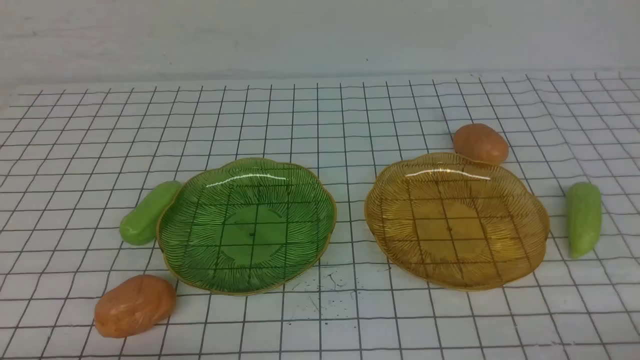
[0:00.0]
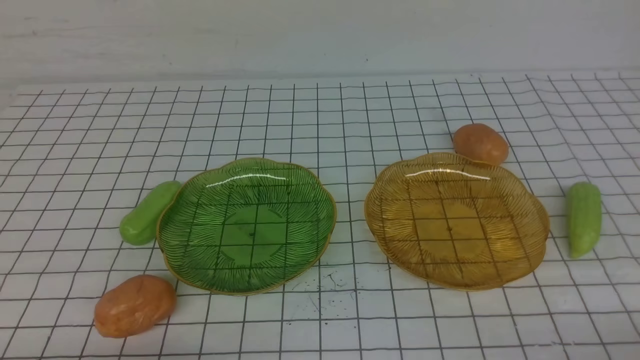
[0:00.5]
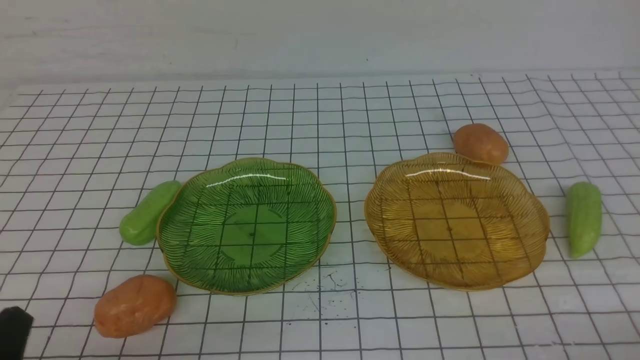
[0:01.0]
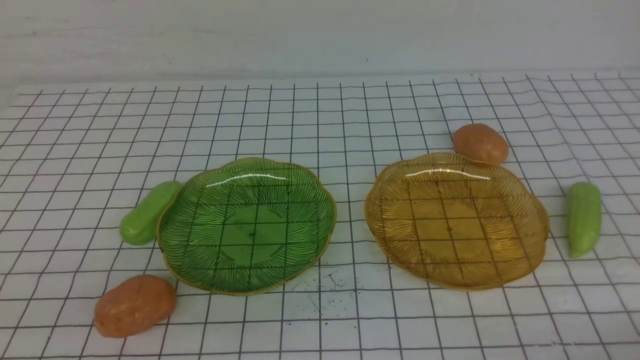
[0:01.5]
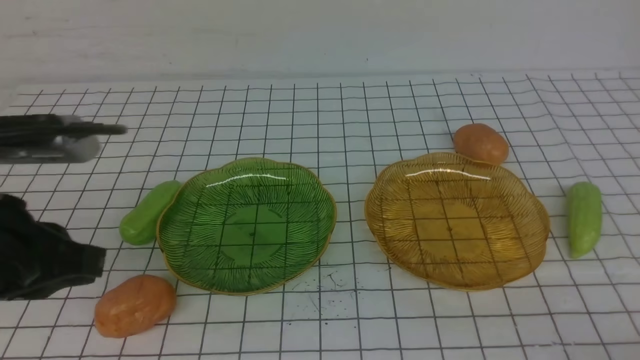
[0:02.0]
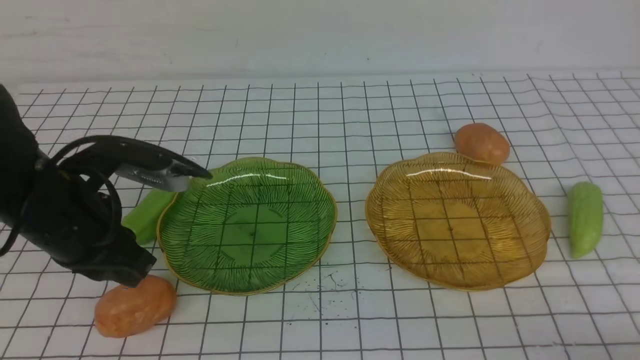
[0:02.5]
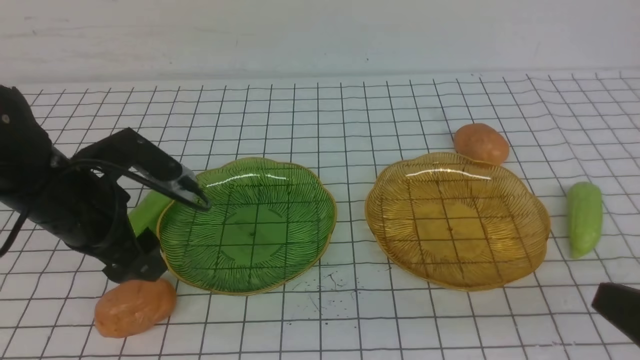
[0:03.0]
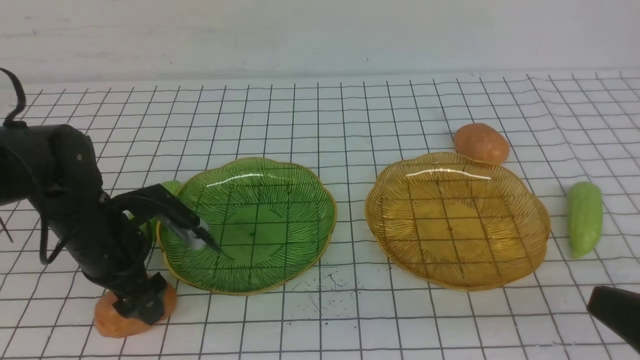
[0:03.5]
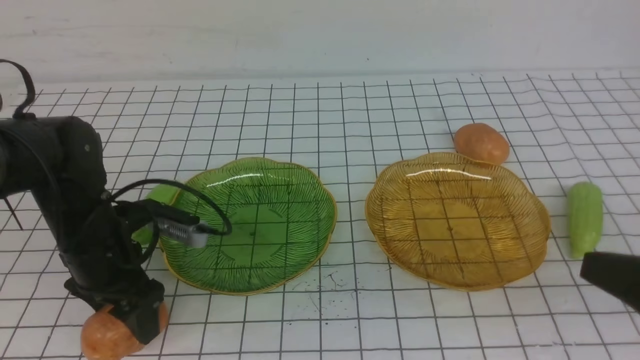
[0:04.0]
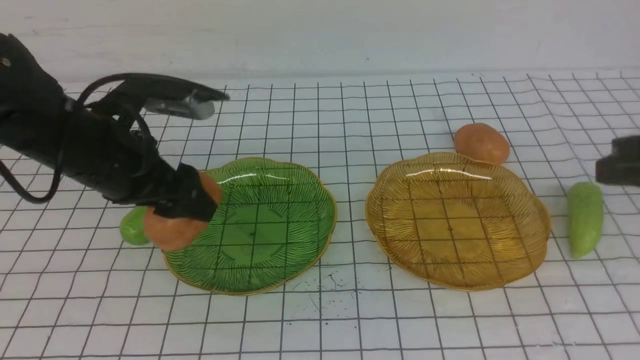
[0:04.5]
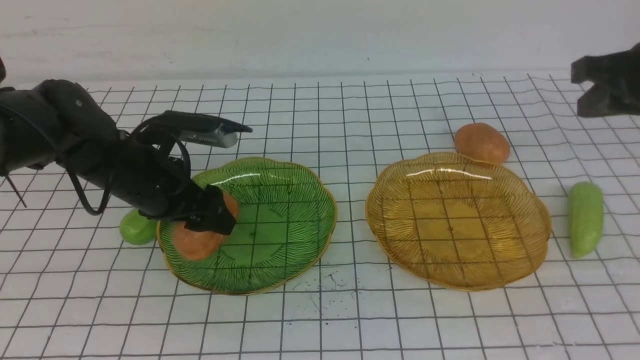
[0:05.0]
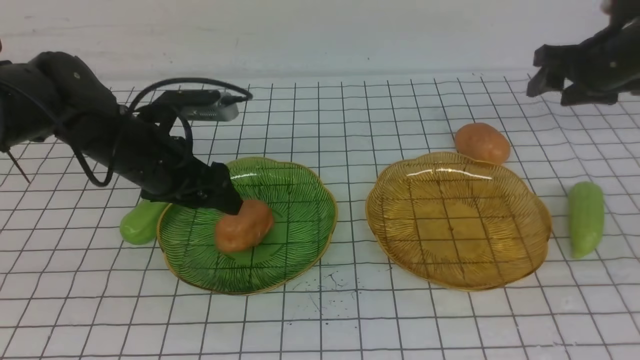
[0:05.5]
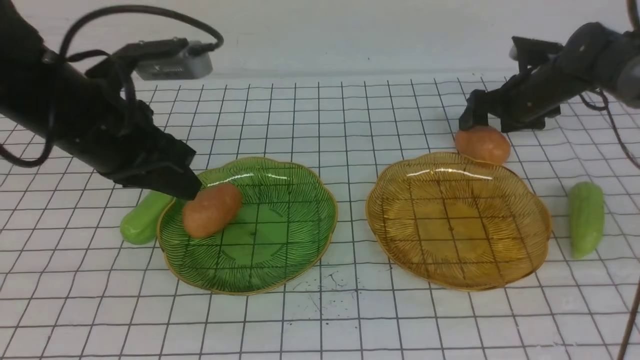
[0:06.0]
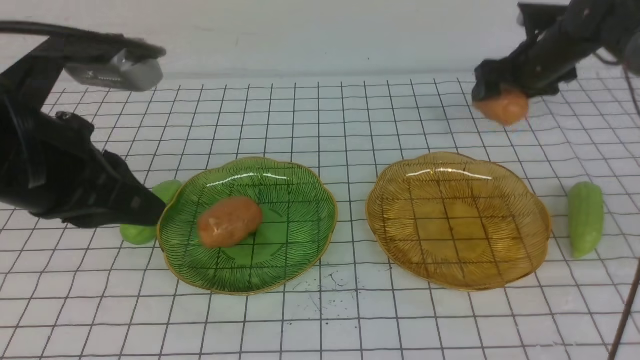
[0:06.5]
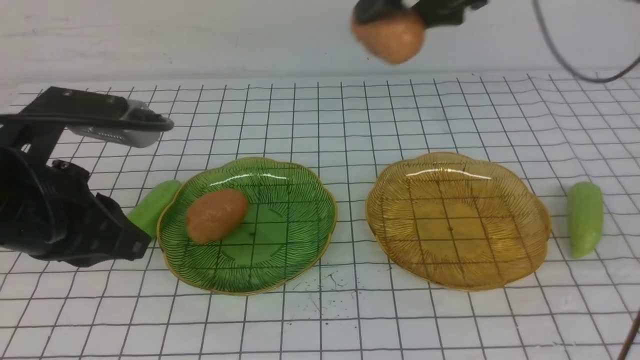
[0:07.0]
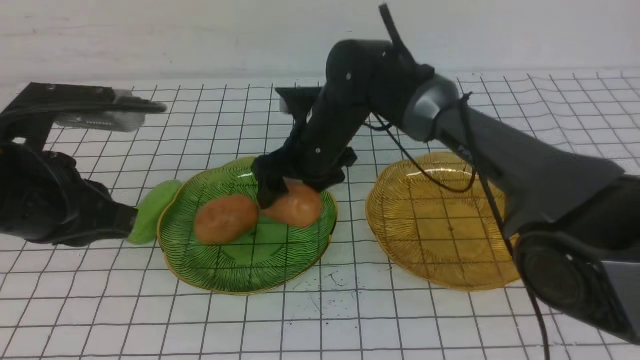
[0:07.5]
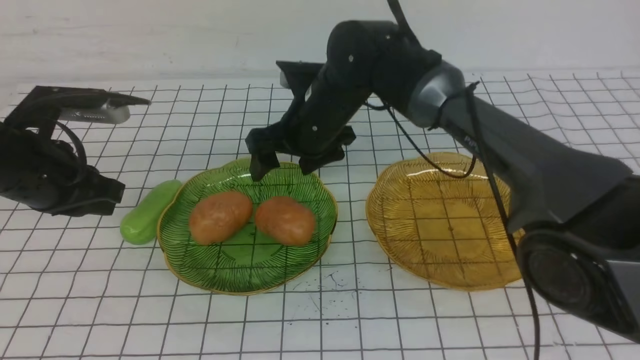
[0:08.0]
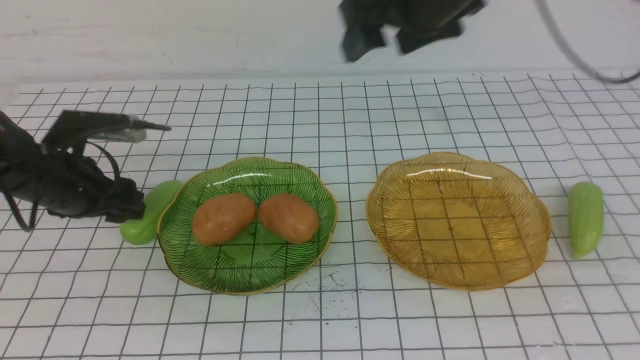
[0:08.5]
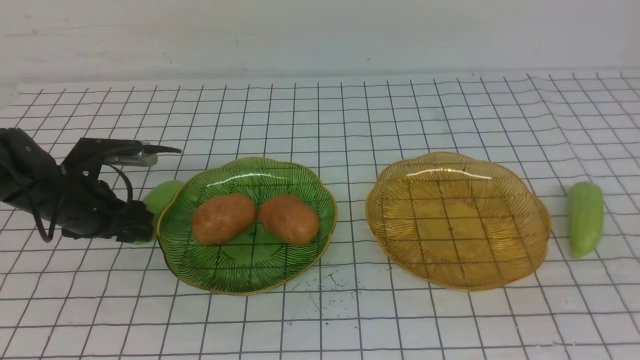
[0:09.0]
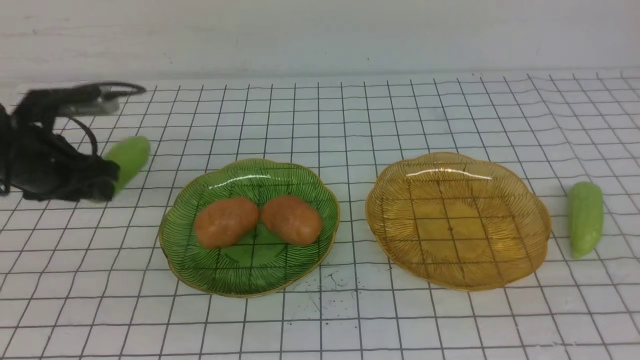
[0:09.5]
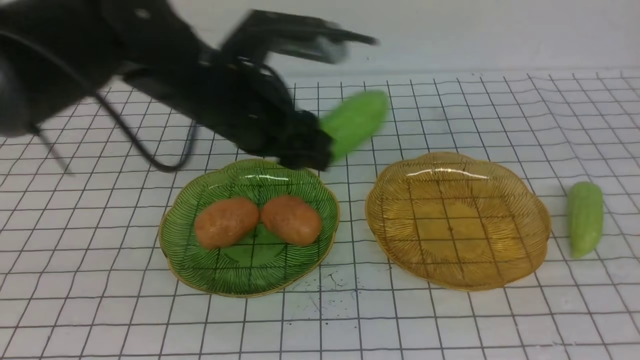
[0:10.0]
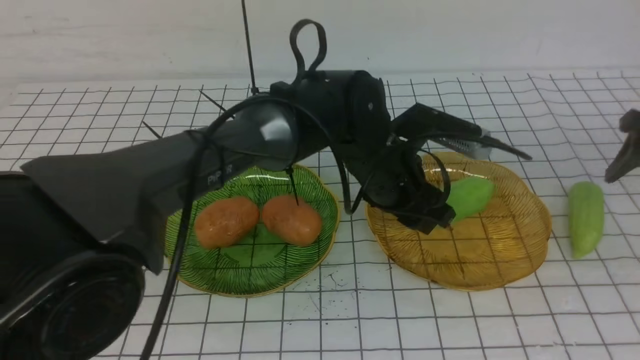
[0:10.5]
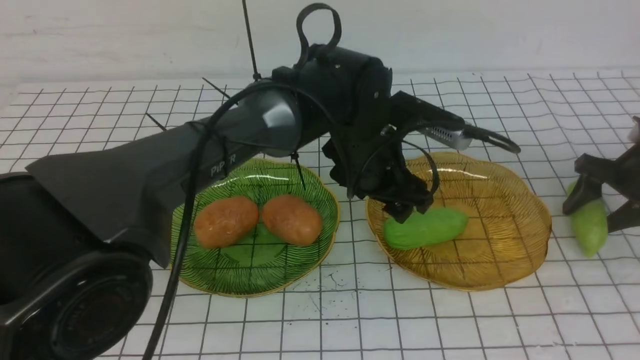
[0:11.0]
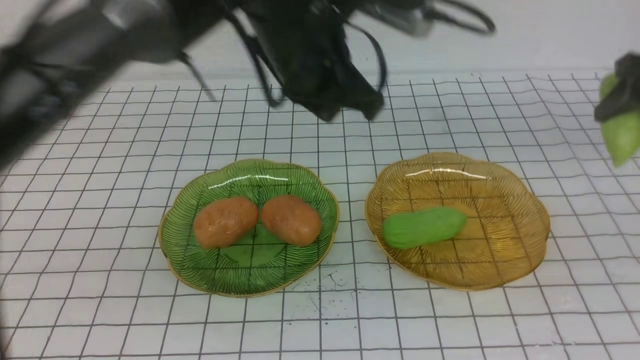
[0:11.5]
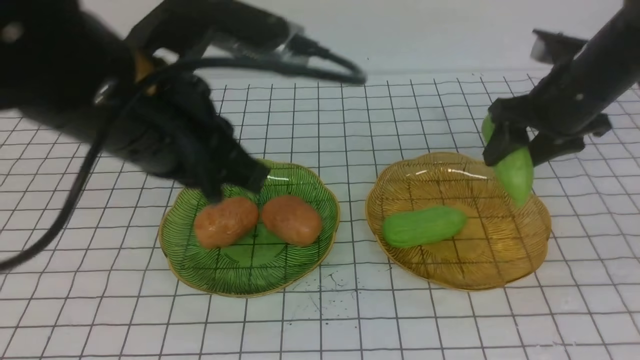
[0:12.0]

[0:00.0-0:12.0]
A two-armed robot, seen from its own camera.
Step, 0:00.0 to 0:05.5: Grab a potato with your left arm and put it on the left plate.
Step, 0:06.0 to 0:07.5: Grab a potato with your right arm and put it on the left plate.
Step, 0:08.0 to 0:11.0: use the left arm to grab a chayote and put it into the right plate.
0:00.0 to 0:02.0: The left gripper is displaced upward and forward by about 20 cm.
0:02.0 to 0:04.0: The left gripper goes about 15 cm forward and downward, and opens up, while the right gripper travels upward and forward by approximately 15 cm.
0:04.0 to 0:06.0: The left gripper moves up and down over approximately 10 cm, changing direction 2 times, and closes. The right gripper is displaced forward by about 40 cm, and opens.
0:06.0 to 0:08.0: The left gripper shifts approximately 10 cm to the left and downward, and travels backward and back again, some 10 cm each way; the right gripper shifts roughly 25 cm to the left.
0:08.0 to 0:10.0: The right gripper shifts roughly 40 cm to the right. The left gripper moves to the right, approximately 20 cm.
0:10.0 to 0:12.0: The left gripper shifts approximately 15 cm backward and upward, moves about 15 cm to the right and comes back, and closes its fingers; the right gripper is displaced to the left, downward and forward by some 20 cm.

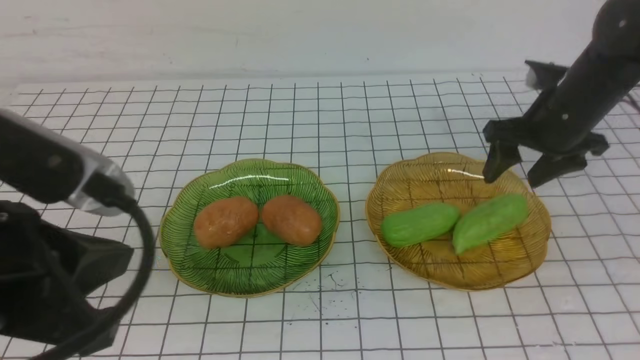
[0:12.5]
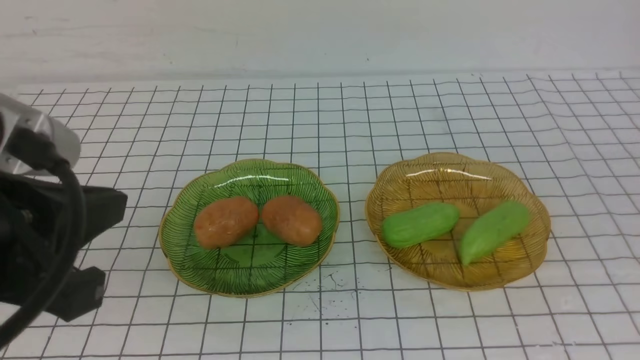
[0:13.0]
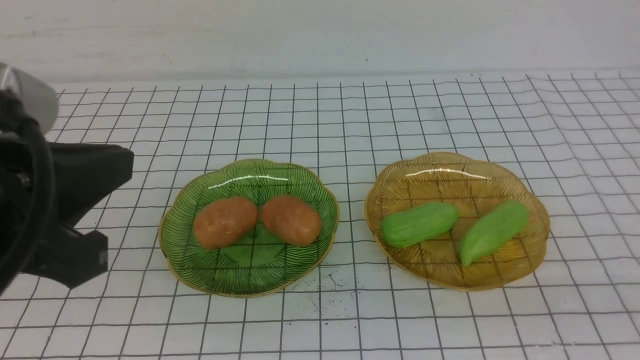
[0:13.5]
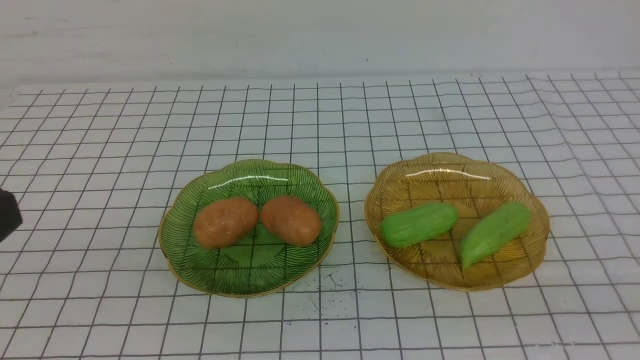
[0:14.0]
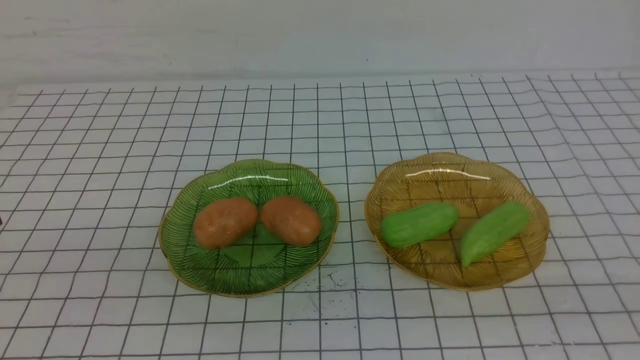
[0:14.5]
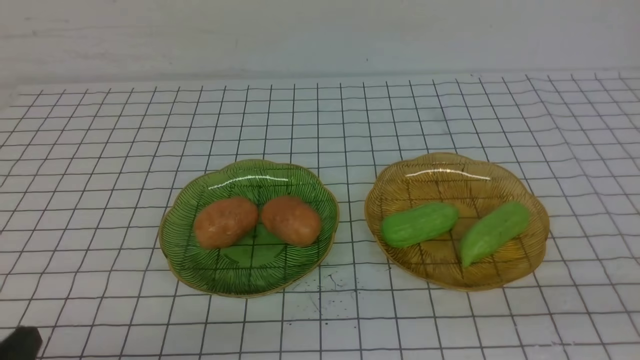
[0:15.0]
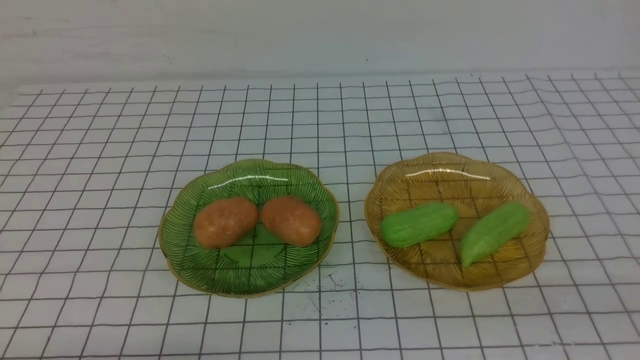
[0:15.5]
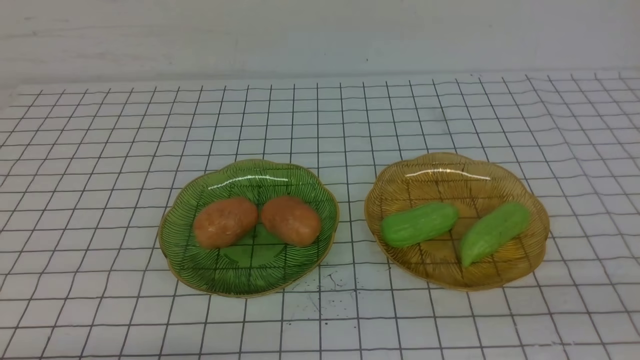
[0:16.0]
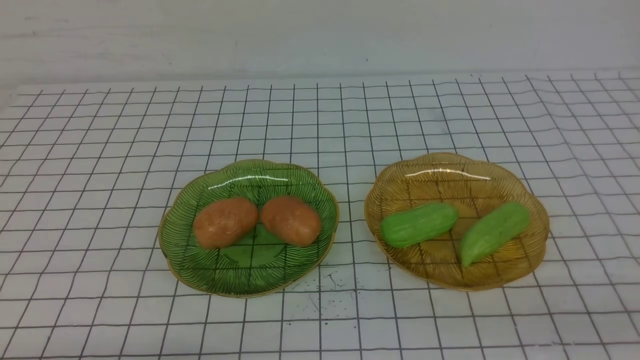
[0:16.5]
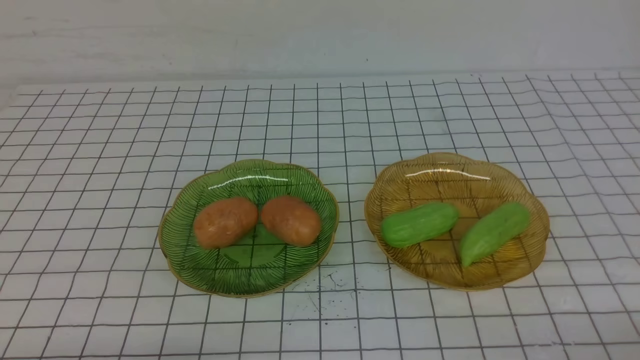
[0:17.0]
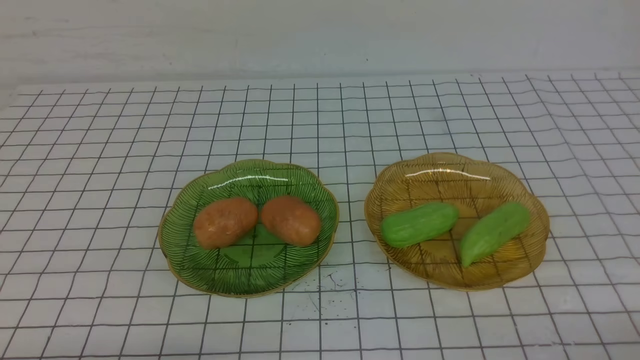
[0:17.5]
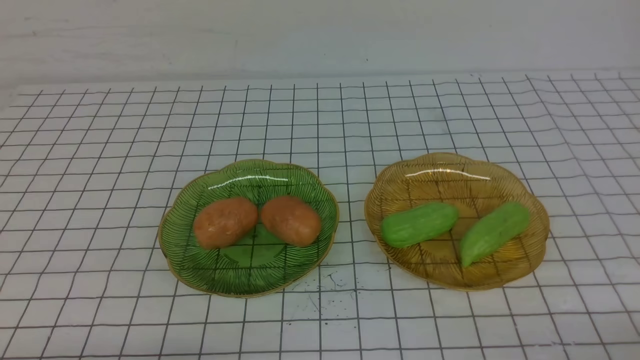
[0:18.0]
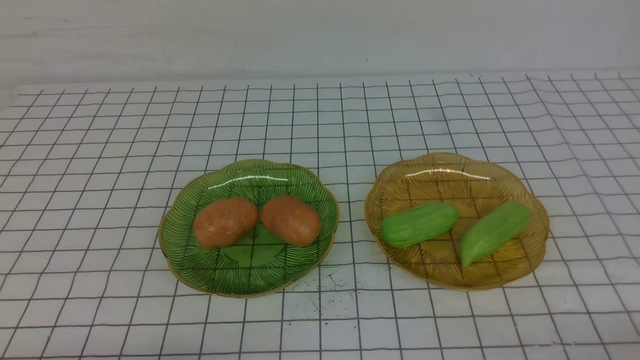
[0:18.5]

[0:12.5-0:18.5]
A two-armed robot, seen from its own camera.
0:12.5 to 0:14.5: The left gripper heads backward and to the left, covering about 10 cm. Meanwhile the right gripper moves backward, some 35 cm, and closes up.
